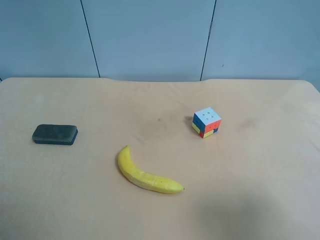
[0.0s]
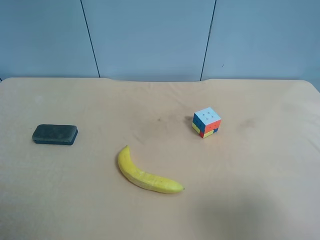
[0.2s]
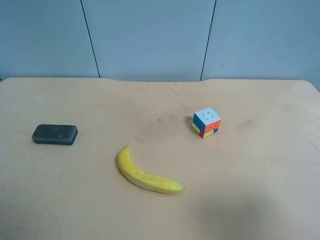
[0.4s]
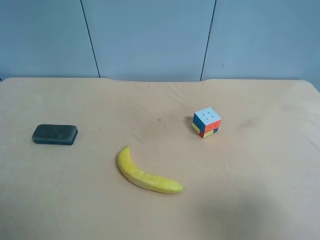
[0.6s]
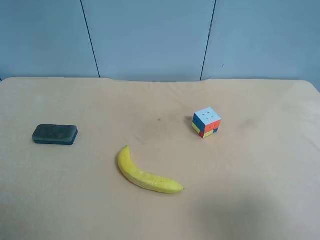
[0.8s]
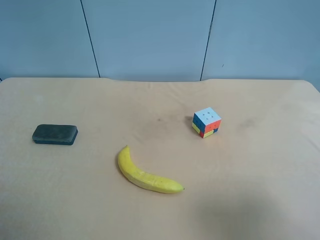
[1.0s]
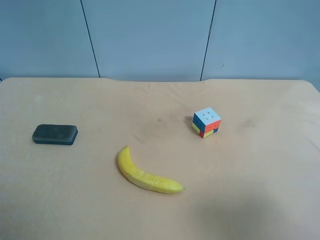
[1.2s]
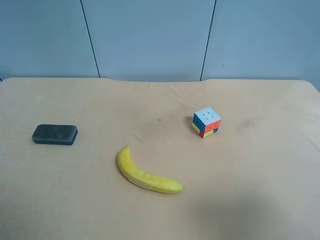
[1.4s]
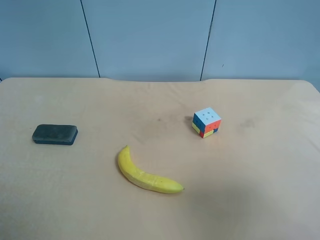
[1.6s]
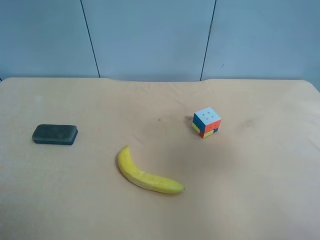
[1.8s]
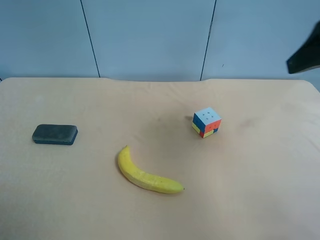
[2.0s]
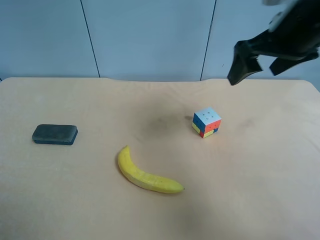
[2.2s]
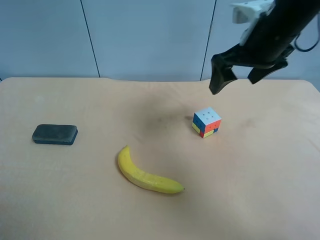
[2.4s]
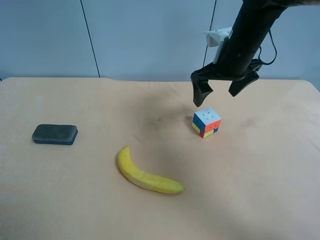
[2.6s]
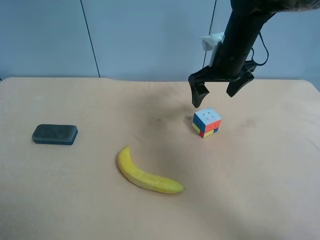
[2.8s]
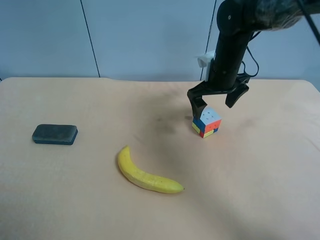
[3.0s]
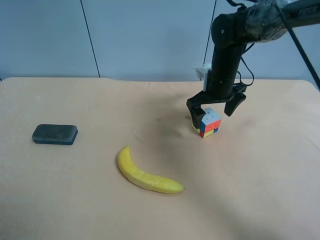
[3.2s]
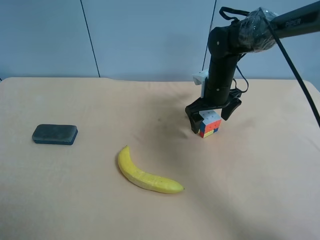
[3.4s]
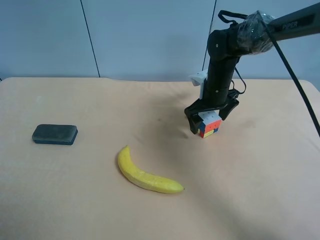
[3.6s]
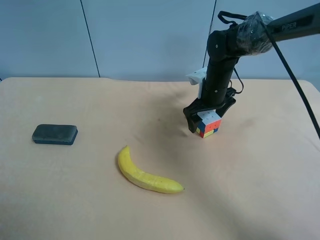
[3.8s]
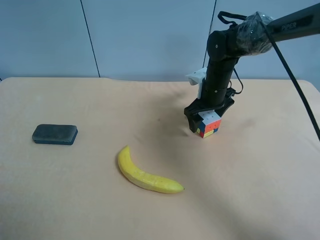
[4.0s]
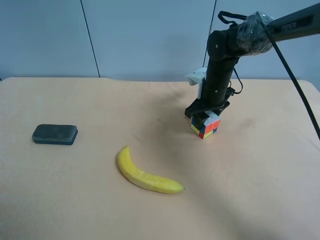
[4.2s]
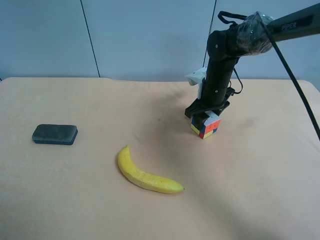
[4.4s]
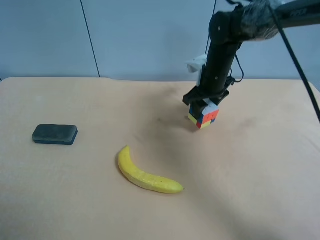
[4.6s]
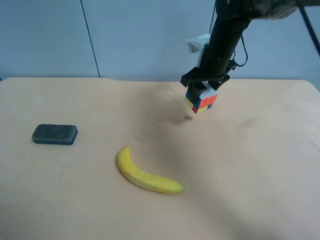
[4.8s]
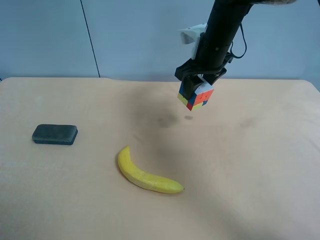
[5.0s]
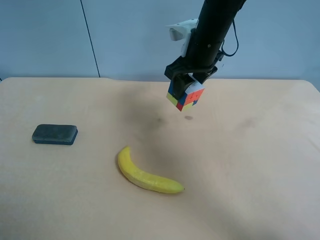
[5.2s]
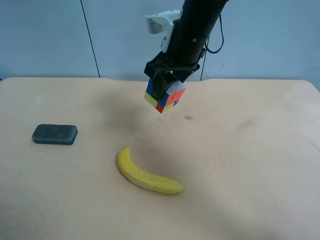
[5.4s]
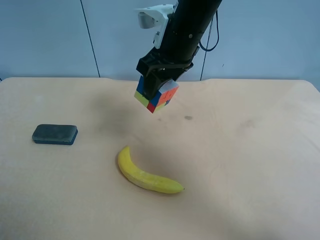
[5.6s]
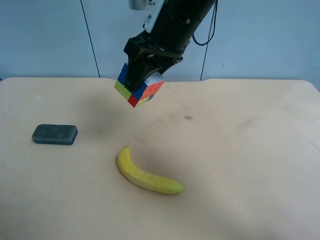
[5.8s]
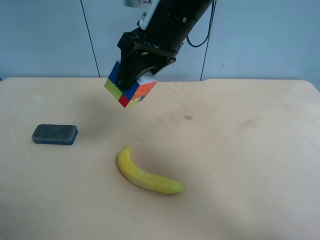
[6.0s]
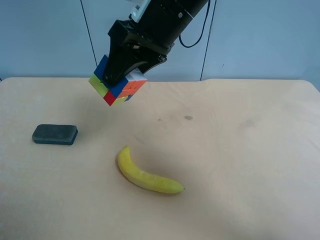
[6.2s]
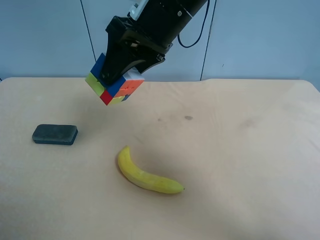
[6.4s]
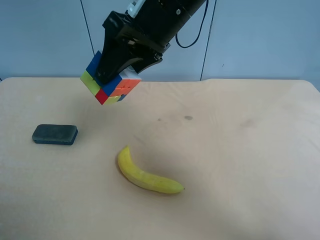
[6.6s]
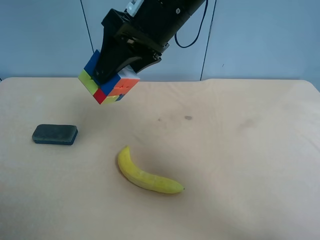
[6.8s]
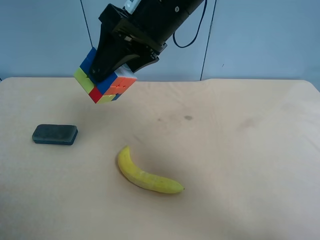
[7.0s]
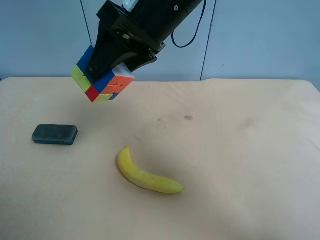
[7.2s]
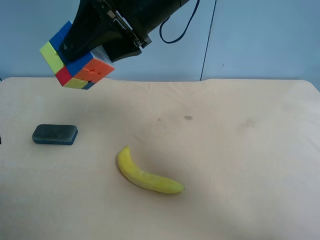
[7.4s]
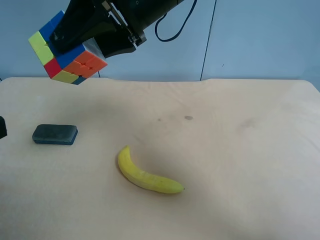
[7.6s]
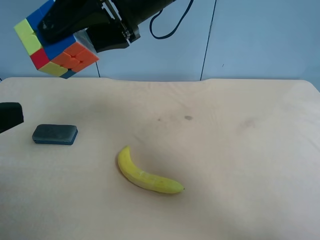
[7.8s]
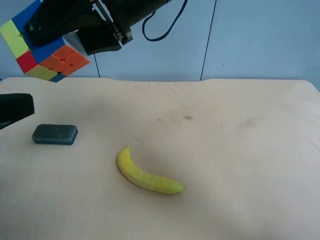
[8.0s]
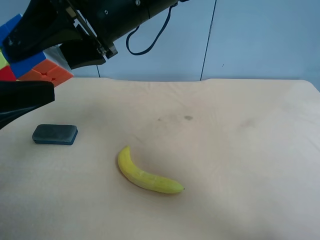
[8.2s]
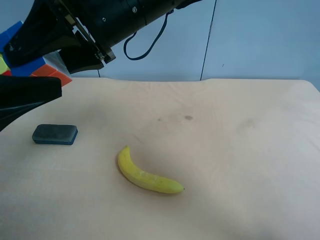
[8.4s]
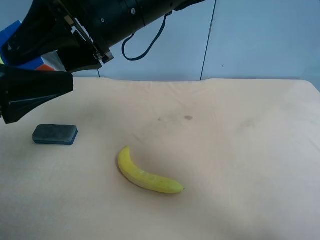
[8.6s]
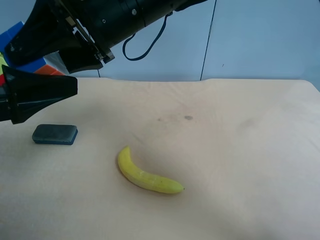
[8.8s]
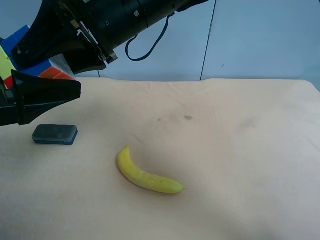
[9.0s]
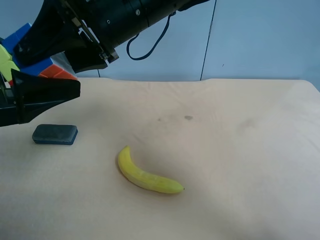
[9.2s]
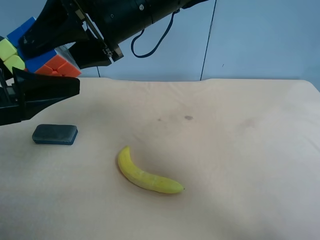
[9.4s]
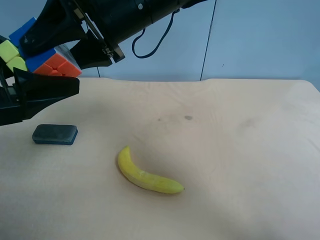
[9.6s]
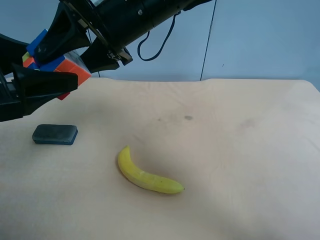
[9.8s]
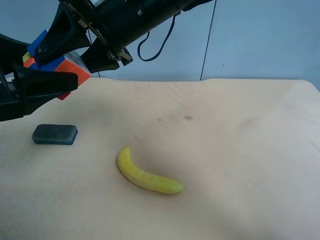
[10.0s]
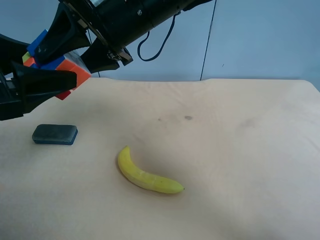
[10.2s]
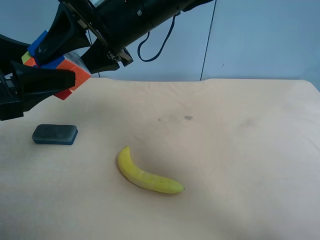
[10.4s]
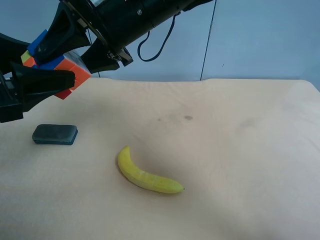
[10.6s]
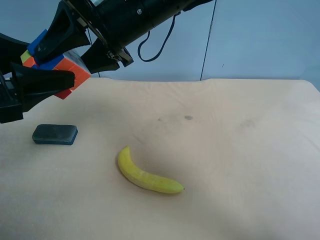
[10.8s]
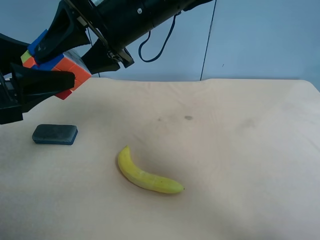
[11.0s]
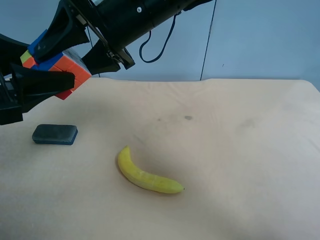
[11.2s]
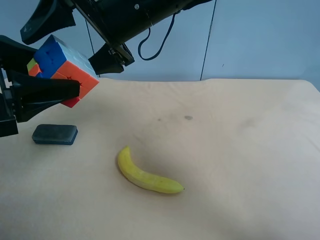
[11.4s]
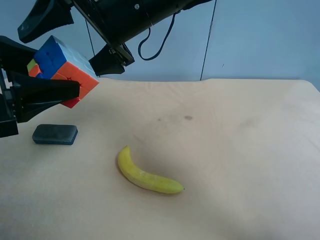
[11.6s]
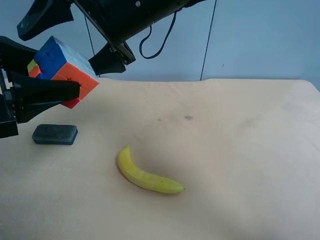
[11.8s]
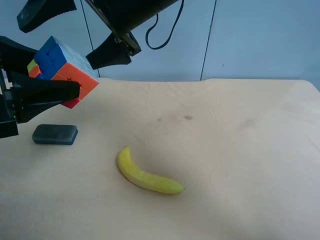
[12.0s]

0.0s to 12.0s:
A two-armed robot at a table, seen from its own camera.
Task of the whole recording: use the right gripper to pick up the item and transfer it from the right gripper to the left gripper.
1.6s to 3.0s: The right gripper shifts roughly 35 cm forward.
3.0s to 4.4s: The right gripper travels downward by about 5 cm, and closes its fingers.
4.4s to 6.0s: The right gripper heads upward, to the left and backward, covering about 25 cm.
6.0s to 7.6s: The left gripper moves forward and to the right, some 10 cm.
7.6s to 9.0s: The left gripper moves forward, approximately 10 cm, and closes its fingers.
9.0s to 10.4s: The left gripper closes its fingers.
10.4s to 12.0s: The right gripper opens.

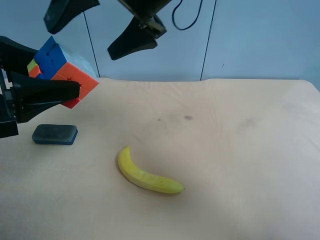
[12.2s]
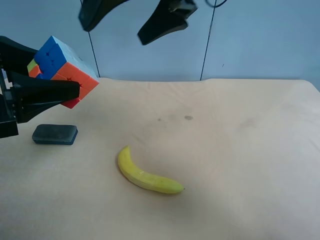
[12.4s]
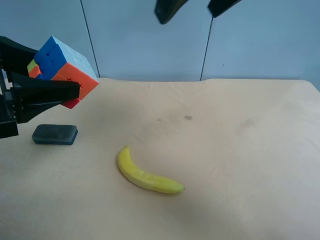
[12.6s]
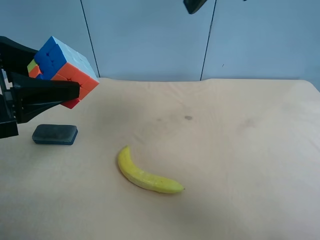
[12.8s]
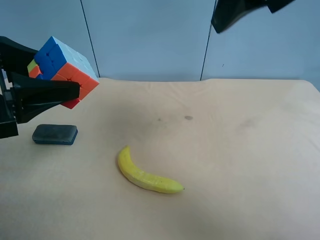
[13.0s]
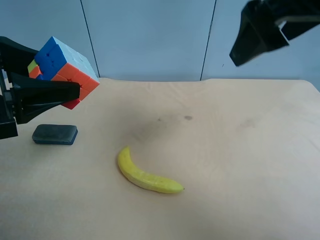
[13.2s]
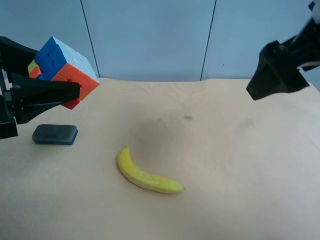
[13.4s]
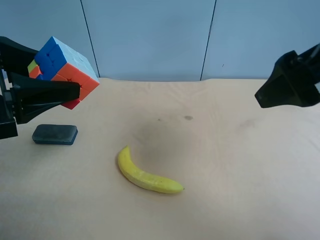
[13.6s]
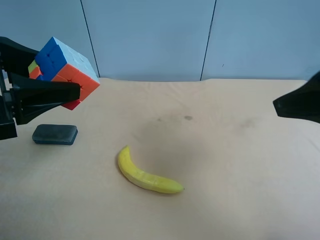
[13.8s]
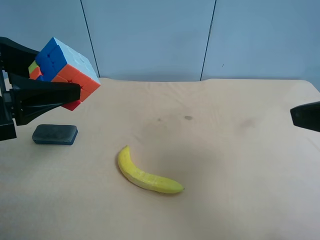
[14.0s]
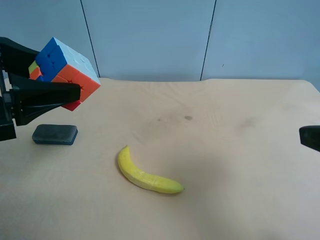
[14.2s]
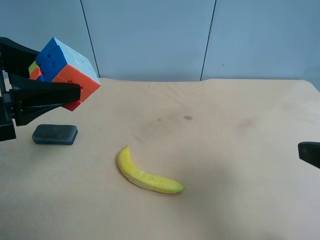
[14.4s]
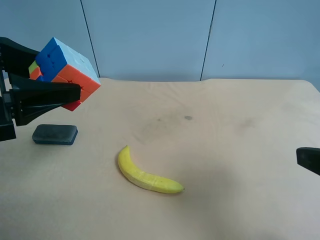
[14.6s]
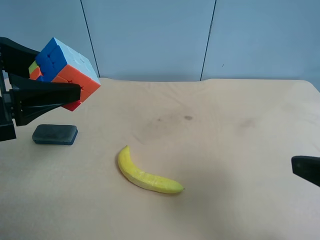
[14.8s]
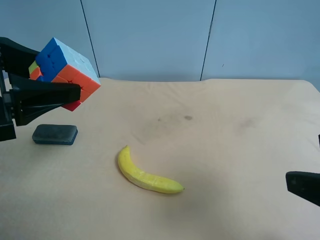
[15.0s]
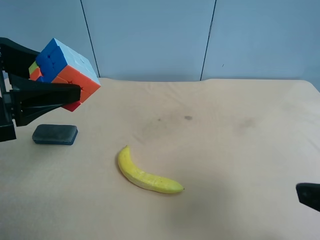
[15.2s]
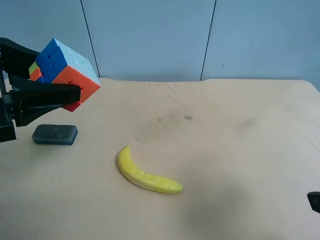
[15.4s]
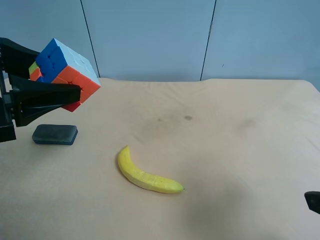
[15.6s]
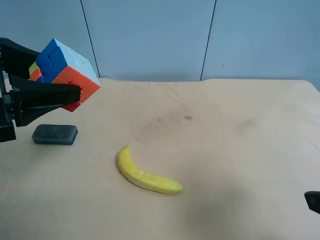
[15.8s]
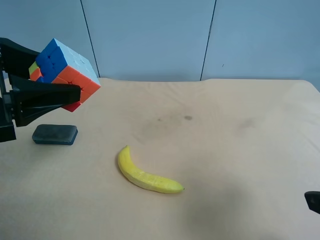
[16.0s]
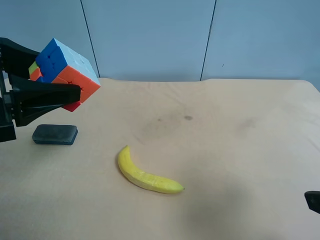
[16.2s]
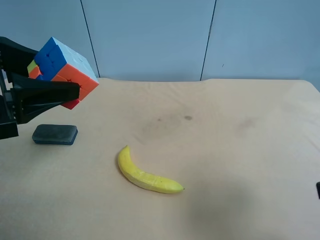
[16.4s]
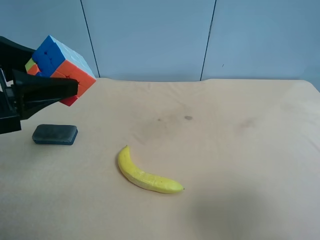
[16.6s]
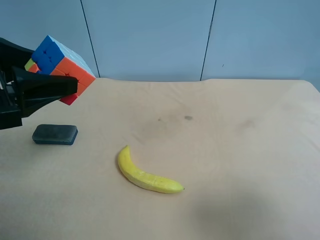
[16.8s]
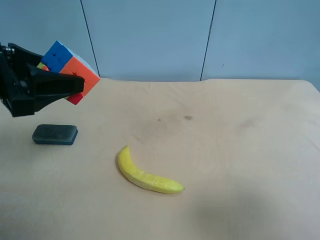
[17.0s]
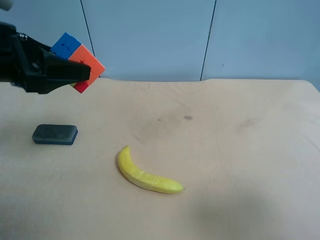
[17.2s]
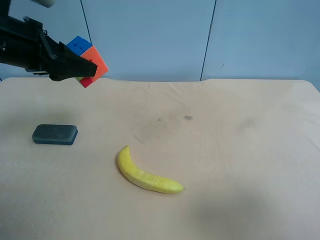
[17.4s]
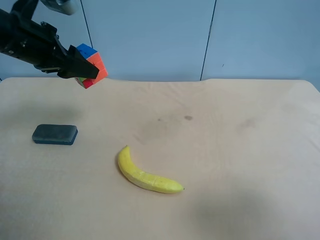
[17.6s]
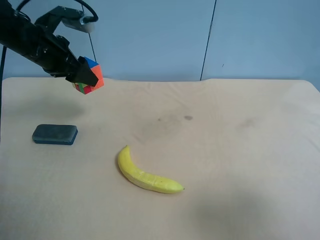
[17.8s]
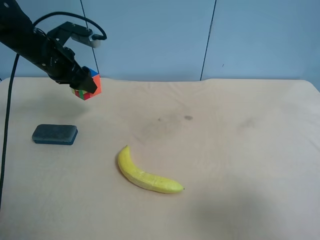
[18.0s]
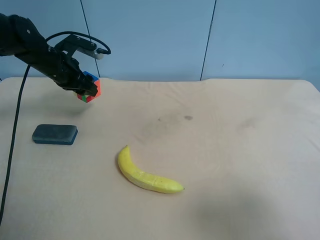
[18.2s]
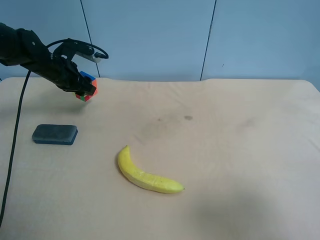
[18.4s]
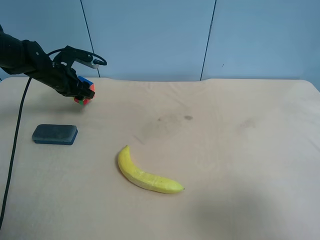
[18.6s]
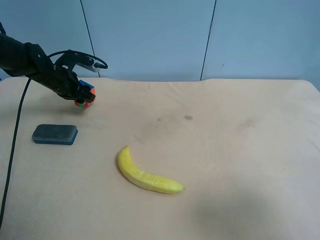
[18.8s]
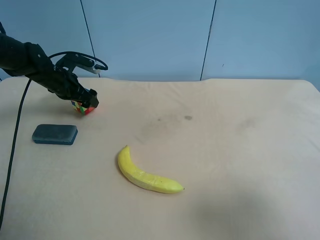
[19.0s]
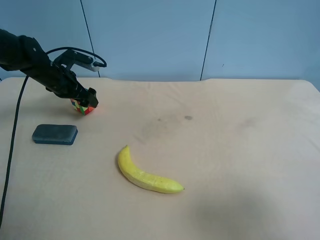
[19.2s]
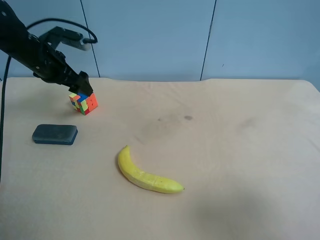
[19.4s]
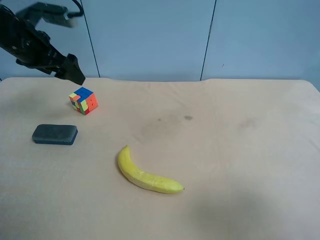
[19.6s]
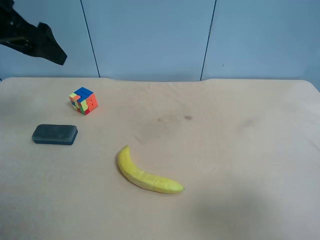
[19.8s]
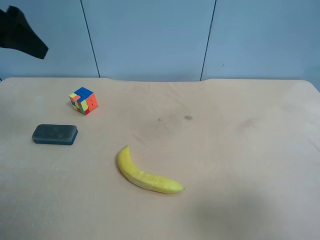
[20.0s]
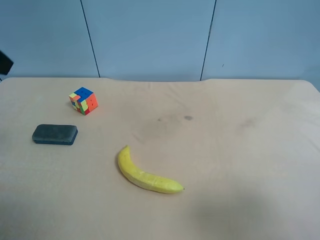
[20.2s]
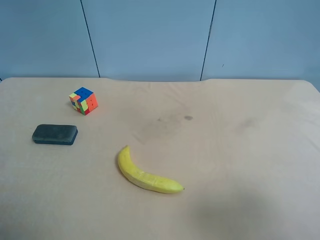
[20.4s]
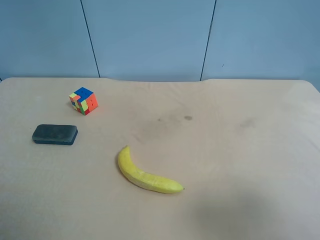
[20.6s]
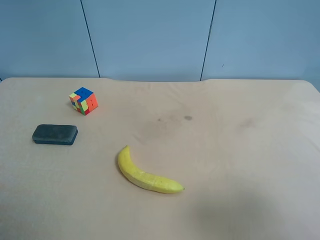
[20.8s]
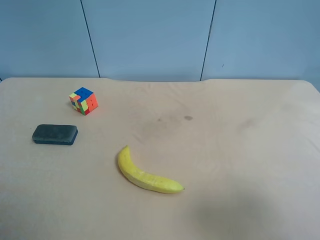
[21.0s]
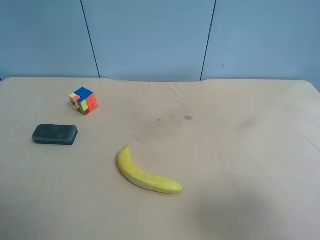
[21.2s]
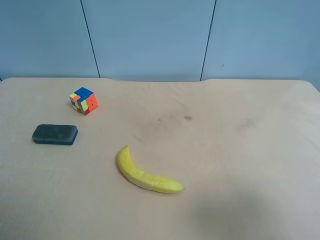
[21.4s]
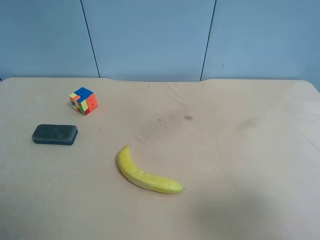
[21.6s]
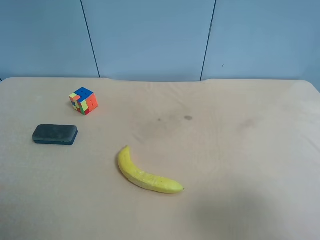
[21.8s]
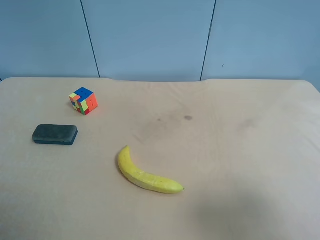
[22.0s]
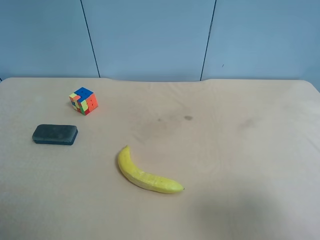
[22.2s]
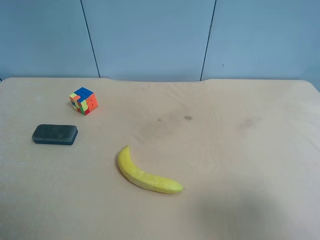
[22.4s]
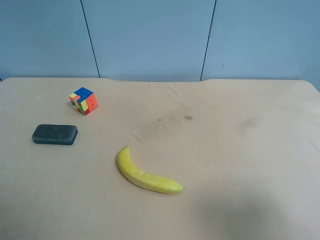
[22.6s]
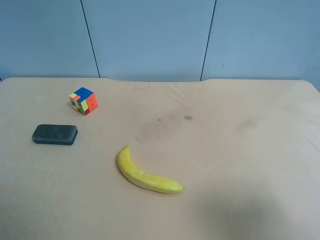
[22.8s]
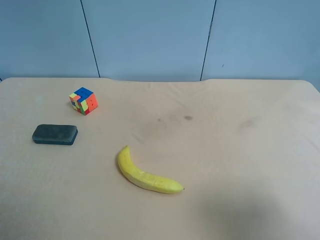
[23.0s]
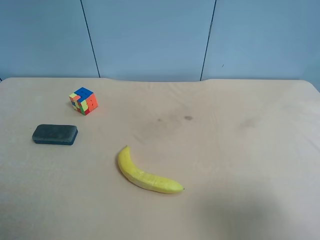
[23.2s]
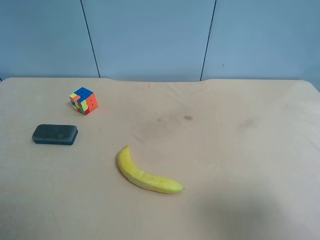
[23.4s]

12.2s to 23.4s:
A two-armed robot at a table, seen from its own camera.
Task of the whole recording: use the right gripper to pick up the item and transfer it from the right gripper to the left gripper.
12.2s to 13.8s: The right gripper moves to the right and backward, about 25 cm.
13.8s to 15.4s: The right gripper goes about 10 cm downward and backward.
15.4s to 17.0s: The right gripper changes place by about 5 cm.
17.0s to 18.6s: The left gripper shifts some 30 cm forward and downward.
18.6s to 20.2s: The left gripper moves upward and backward, roughly 35 cm, and opens.
